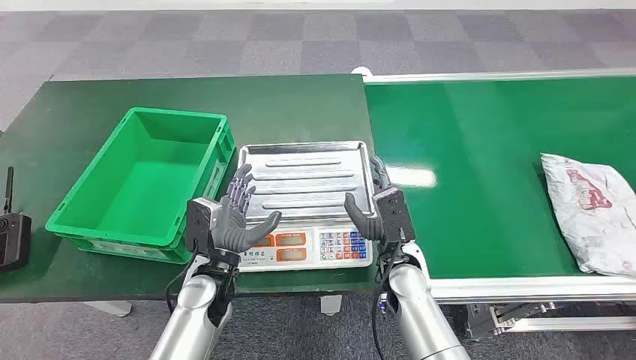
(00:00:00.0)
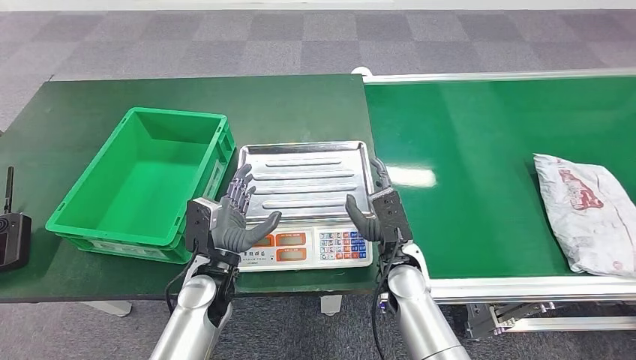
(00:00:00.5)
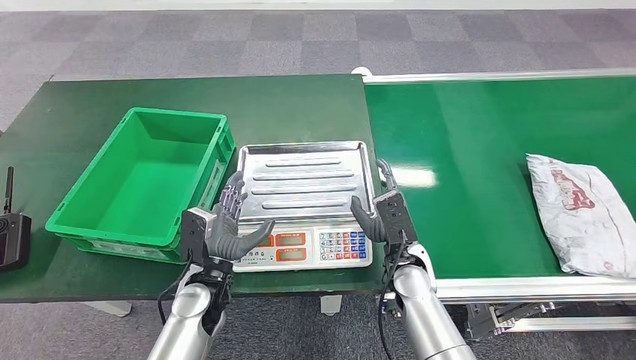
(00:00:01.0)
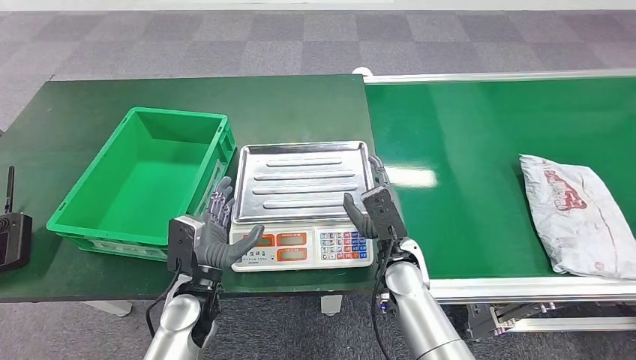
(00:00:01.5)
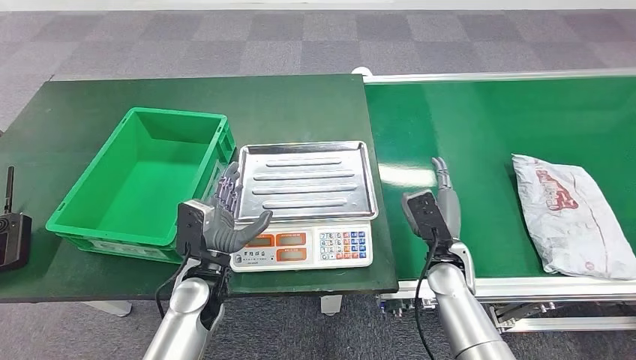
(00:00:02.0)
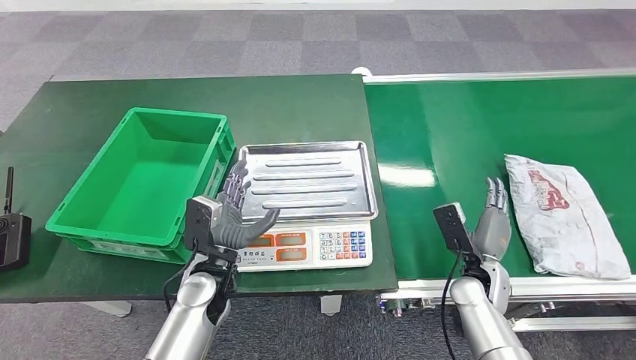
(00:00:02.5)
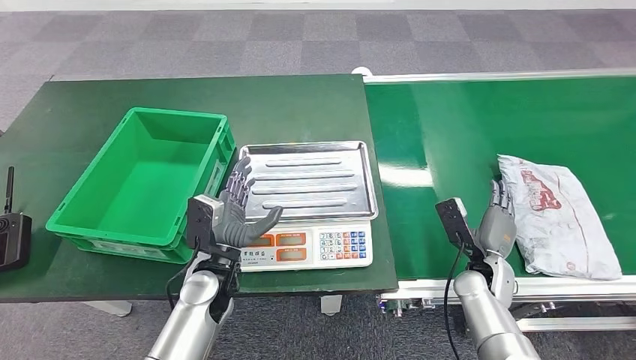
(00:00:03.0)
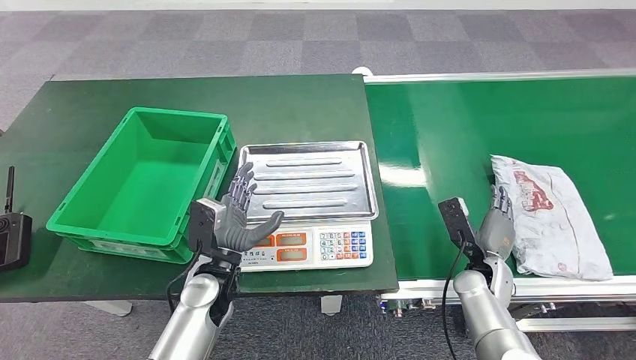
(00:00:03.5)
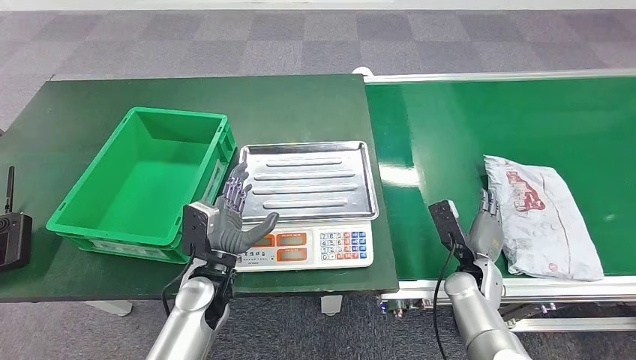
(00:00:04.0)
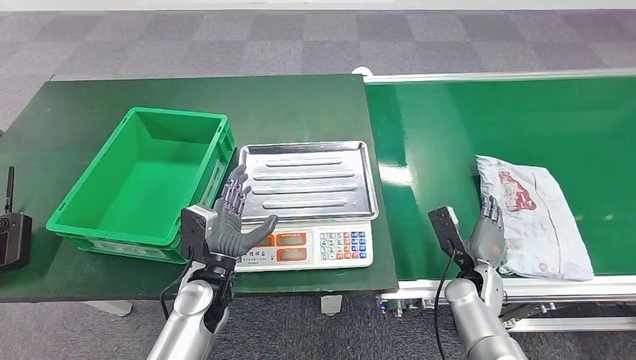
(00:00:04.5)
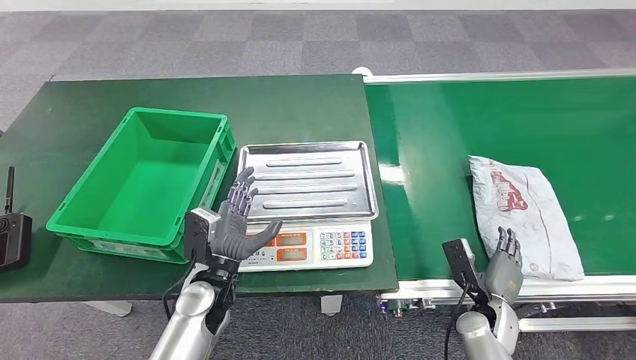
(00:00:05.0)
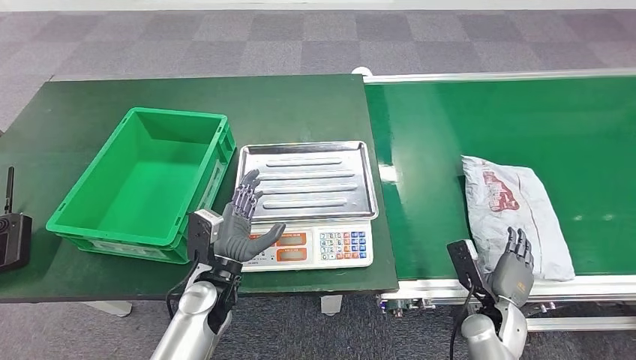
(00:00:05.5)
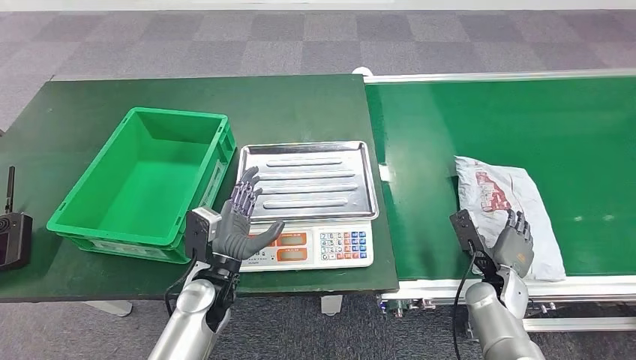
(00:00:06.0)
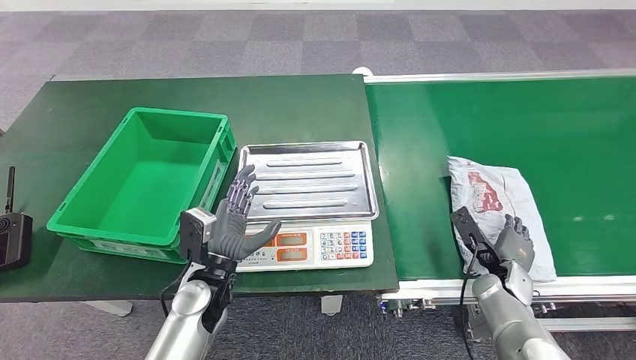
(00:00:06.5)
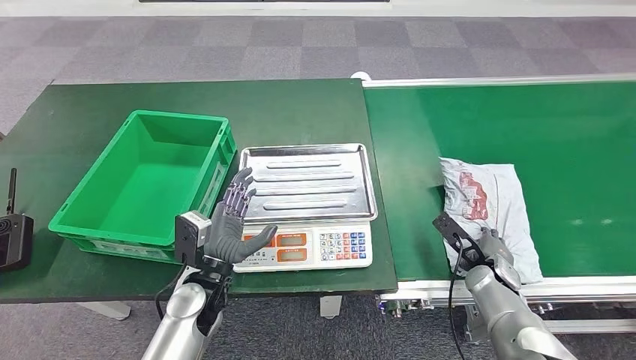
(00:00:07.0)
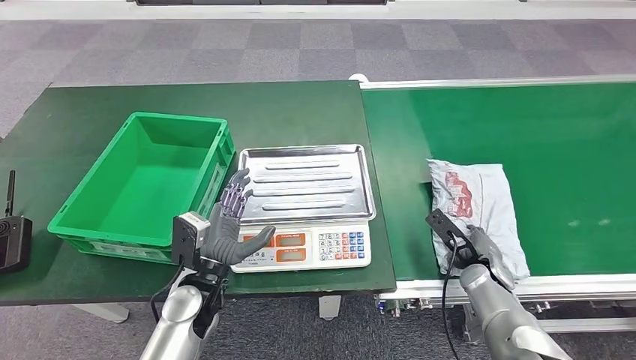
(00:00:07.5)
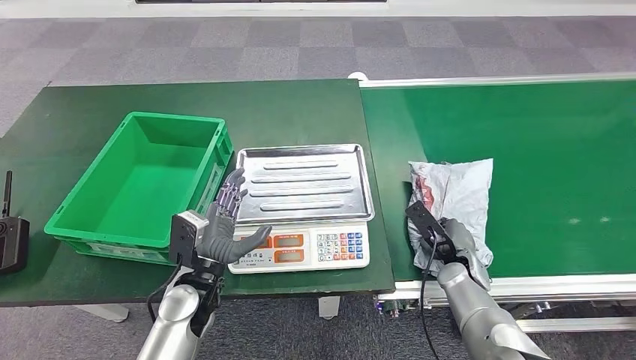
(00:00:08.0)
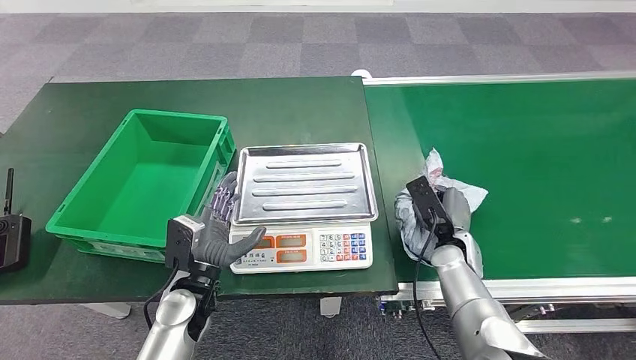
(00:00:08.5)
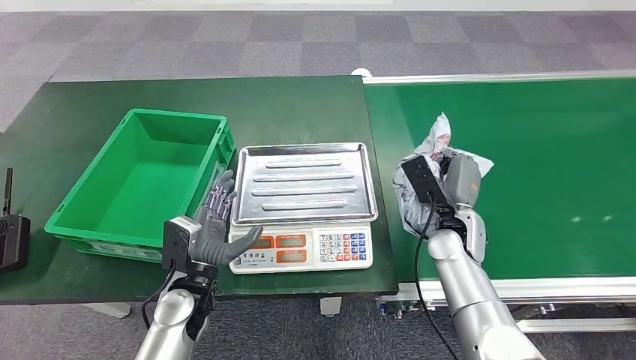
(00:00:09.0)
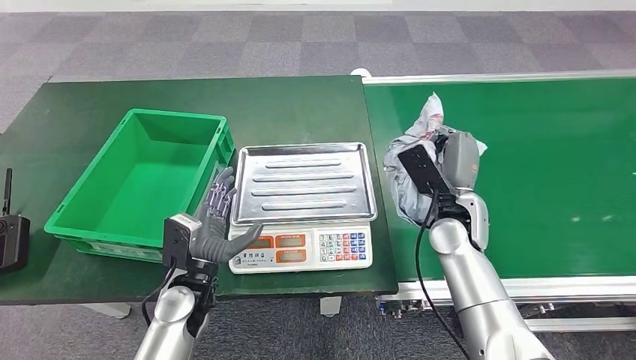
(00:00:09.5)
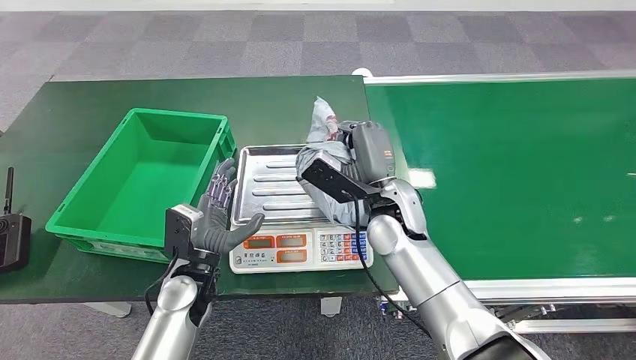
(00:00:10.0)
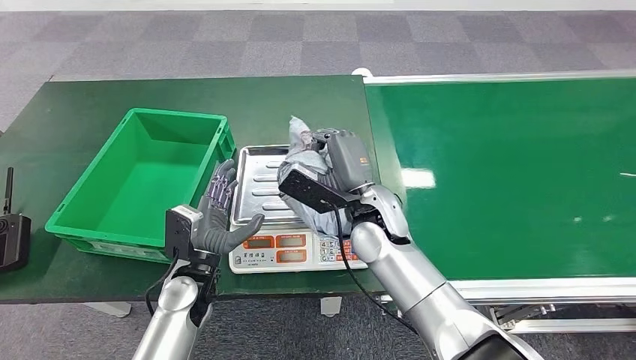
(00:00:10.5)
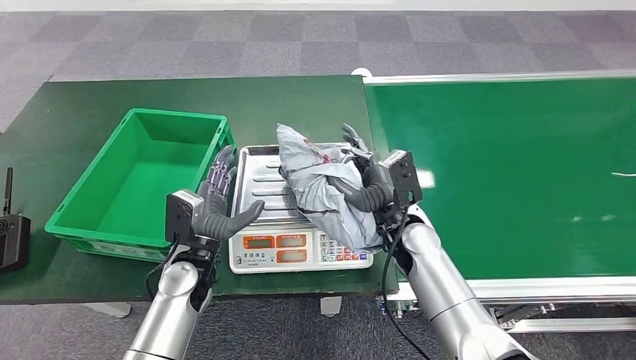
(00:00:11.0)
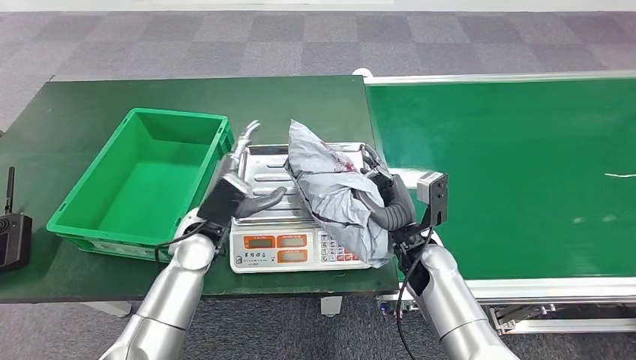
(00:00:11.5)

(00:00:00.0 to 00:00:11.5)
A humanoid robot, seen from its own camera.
Step, 00:00:00.0 - 00:00:09.0: Pick up the package from the conveyor belt.
Step, 00:00:09.5 - 00:00:11.0: Place the package onto the inbound machine.
00:00:02.0 - 00:00:04.0: The right hand heads to the right and downward, covering approximately 10 cm.

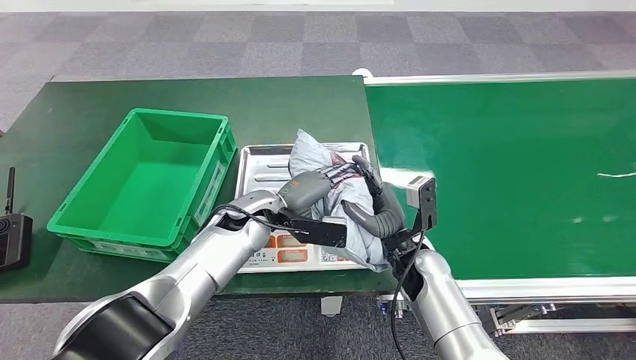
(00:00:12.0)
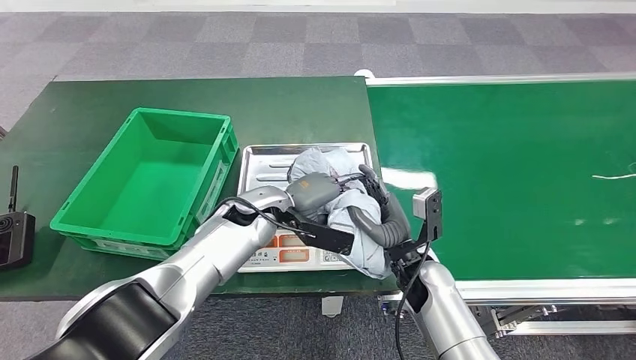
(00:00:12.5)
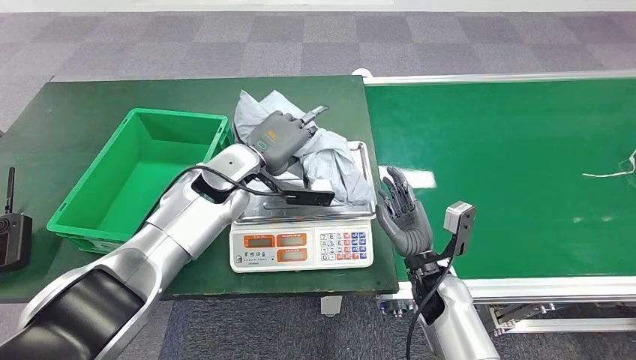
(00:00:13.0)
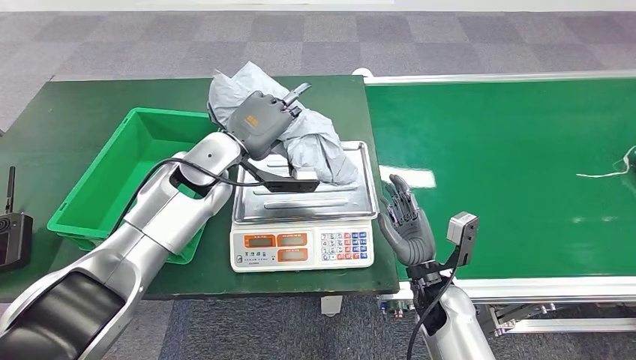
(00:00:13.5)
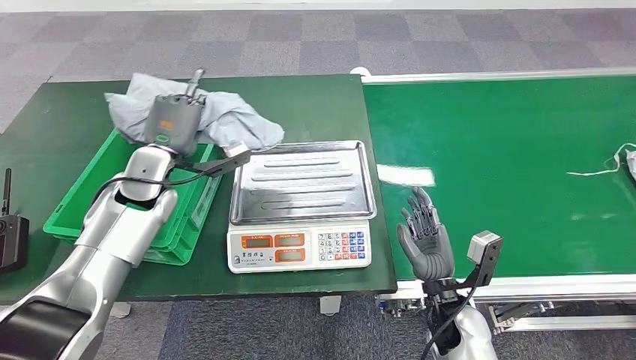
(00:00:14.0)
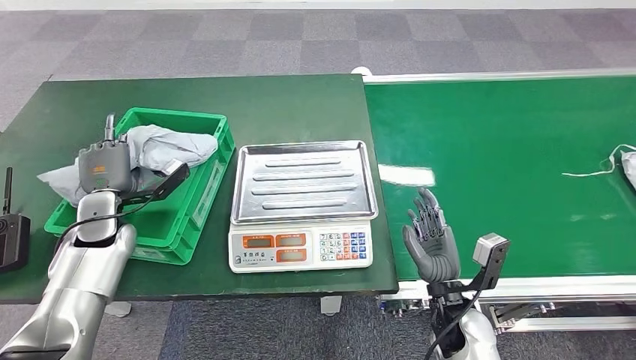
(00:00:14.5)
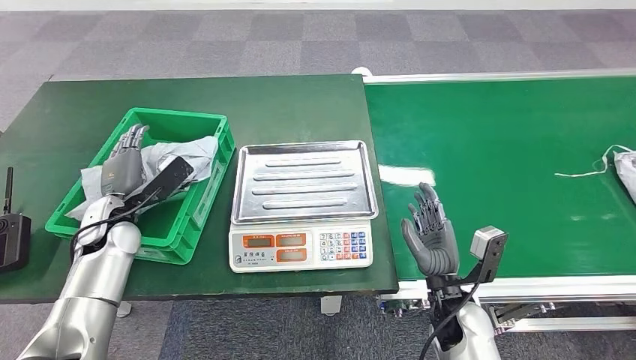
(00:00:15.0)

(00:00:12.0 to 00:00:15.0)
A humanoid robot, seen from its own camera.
Step, 00:00:12.0 - 00:00:13.0: Pick up the package from the inbound machine.
Step, 00:00:13.5 - 00:00:15.0: Place the package into the parcel locker.
